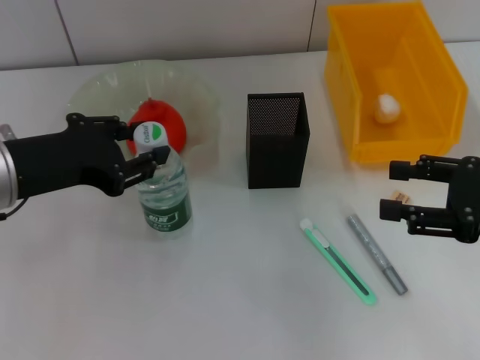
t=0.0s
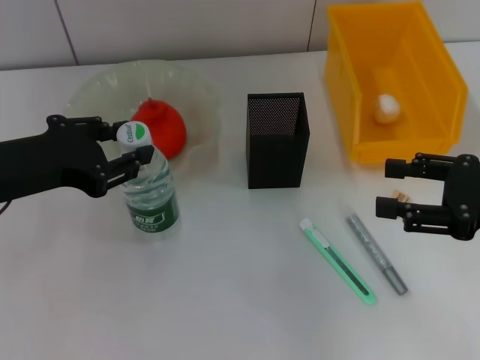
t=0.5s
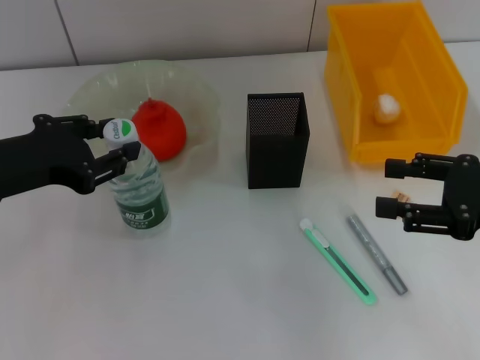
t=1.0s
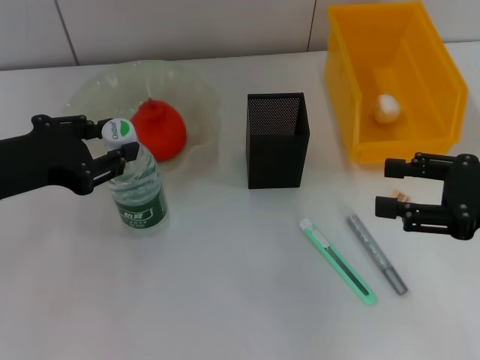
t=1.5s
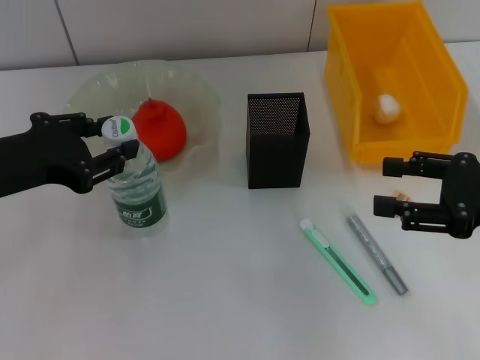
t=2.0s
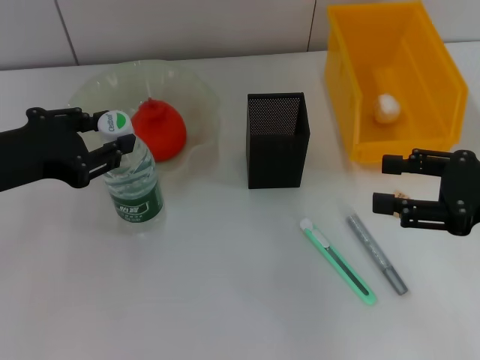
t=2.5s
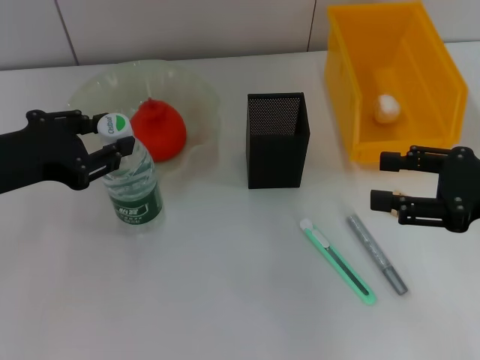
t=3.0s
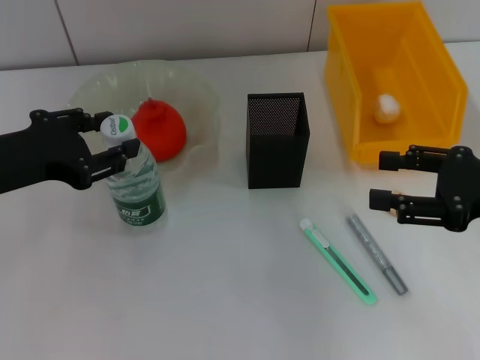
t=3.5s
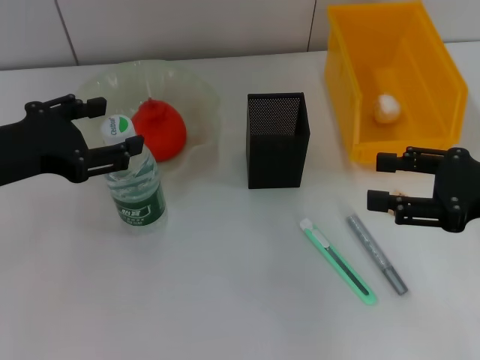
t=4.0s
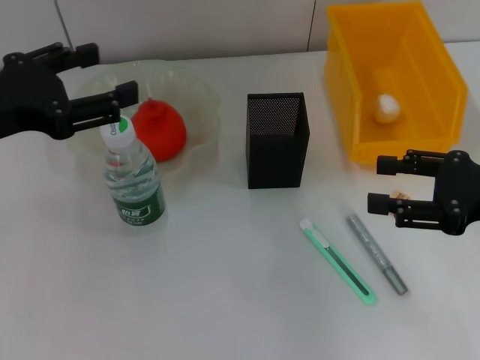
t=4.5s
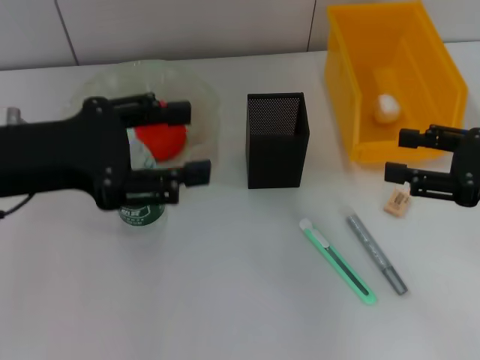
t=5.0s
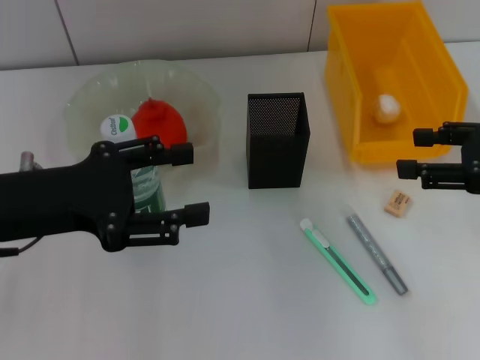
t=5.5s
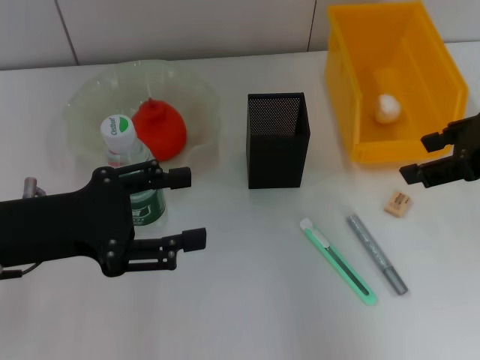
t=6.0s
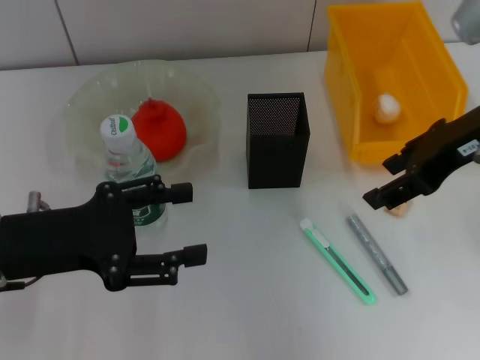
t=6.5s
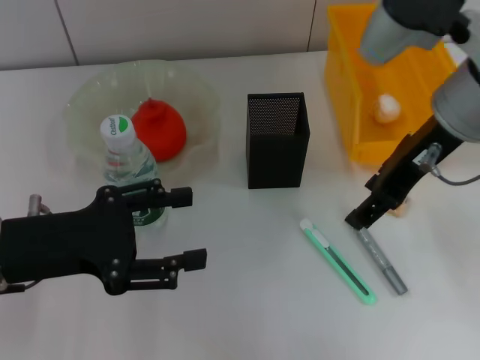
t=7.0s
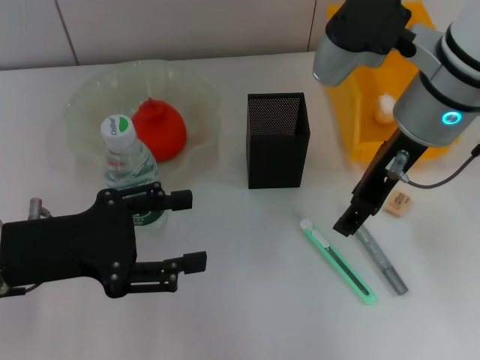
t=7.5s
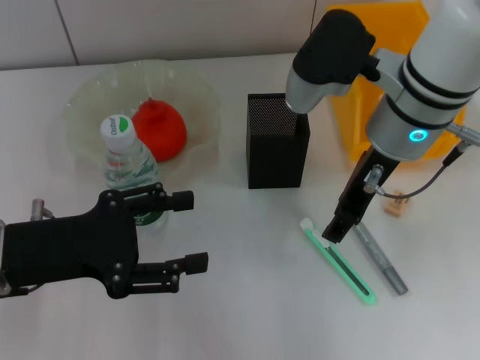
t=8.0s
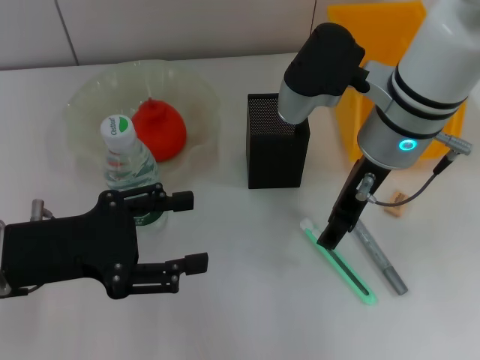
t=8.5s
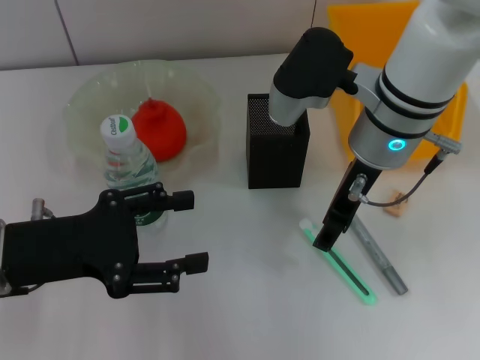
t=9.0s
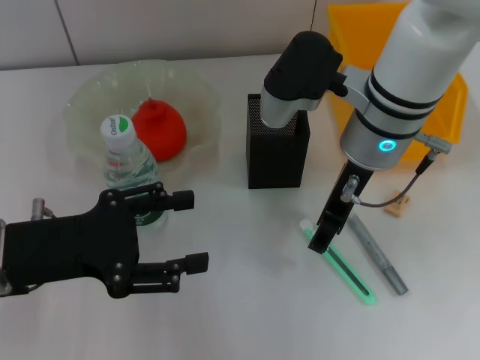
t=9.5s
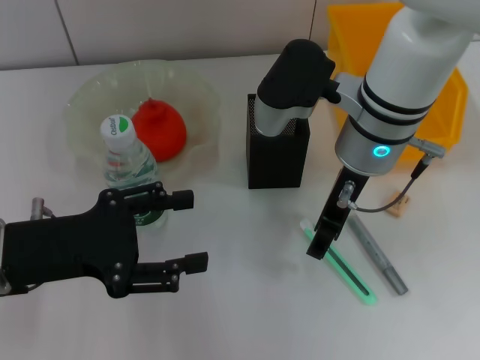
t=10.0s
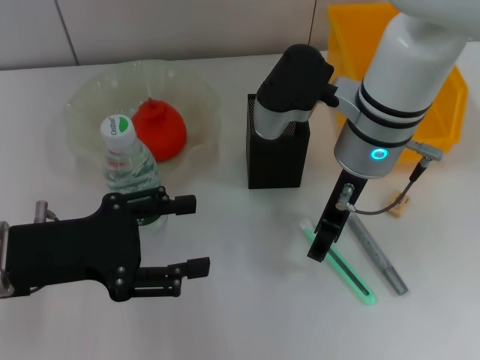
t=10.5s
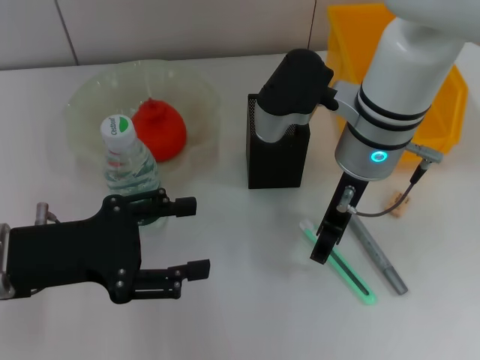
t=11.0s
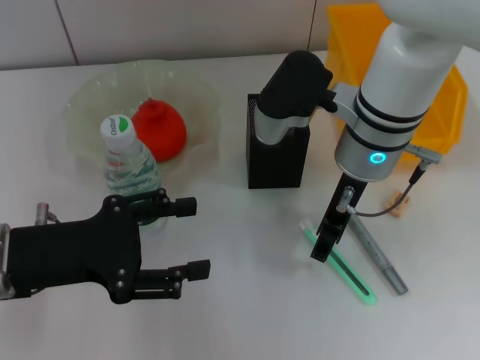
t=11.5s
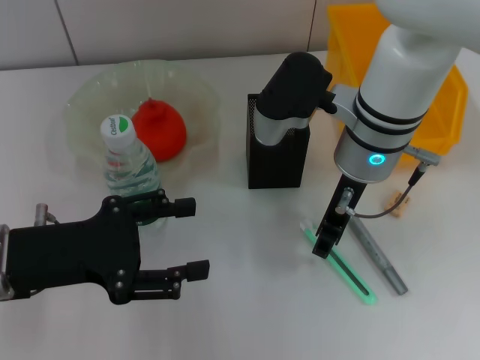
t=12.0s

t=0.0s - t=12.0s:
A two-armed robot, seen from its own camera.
Step, t=0.0s - t=2.0s: Place the water bottle on the table with the left hand.
t=0.0s - t=2.0s: The grippers stay close to where they were, moving slightly.
t=2.0s - t=4.0s: The left gripper opens up.
t=4.0s - t=6.0s: The right gripper is displaced upward by approximately 10 cm.
t=6.0s - t=8.0s: The right gripper goes roughly 15 cm to the left.
t=8.0s - t=10.0s: The grippers make only small movements.
t=10.0s - t=12.0s: Both grippers stay put.

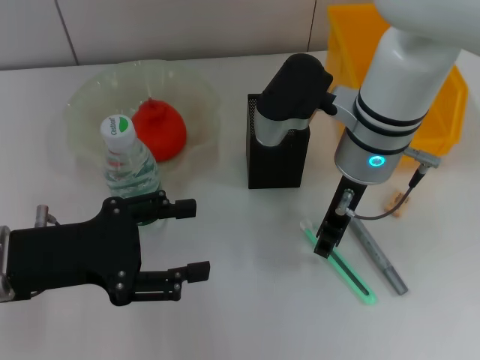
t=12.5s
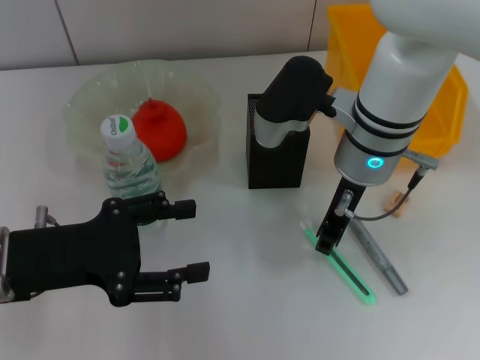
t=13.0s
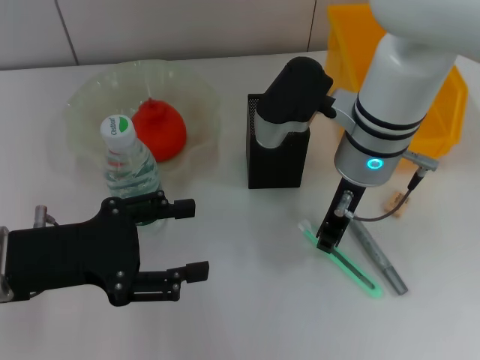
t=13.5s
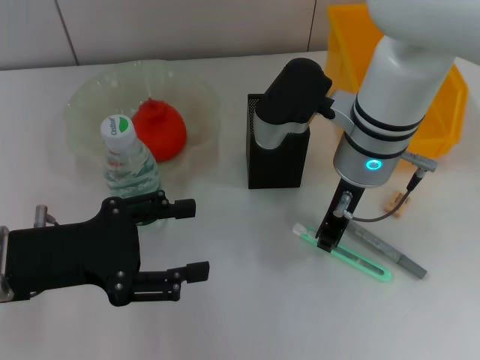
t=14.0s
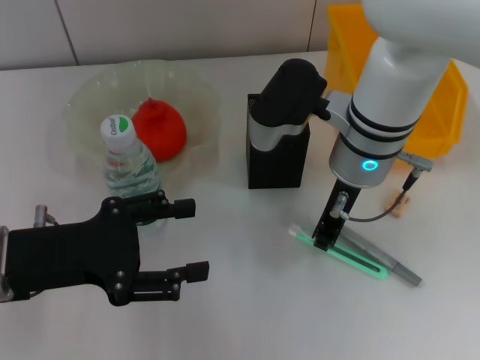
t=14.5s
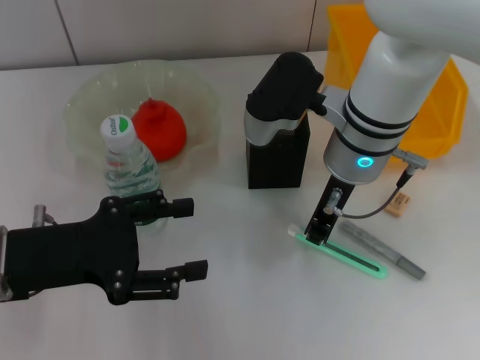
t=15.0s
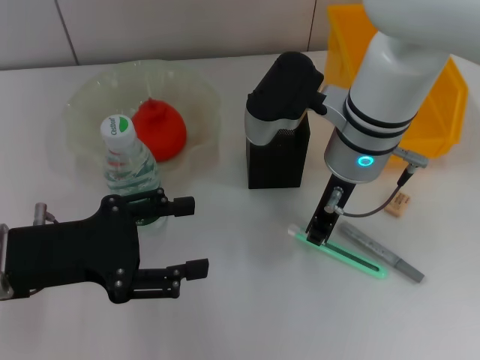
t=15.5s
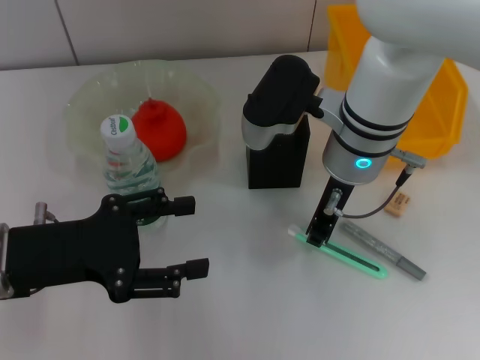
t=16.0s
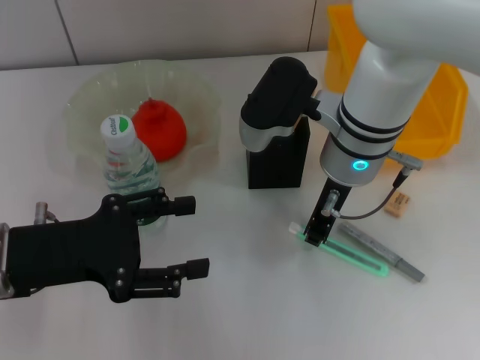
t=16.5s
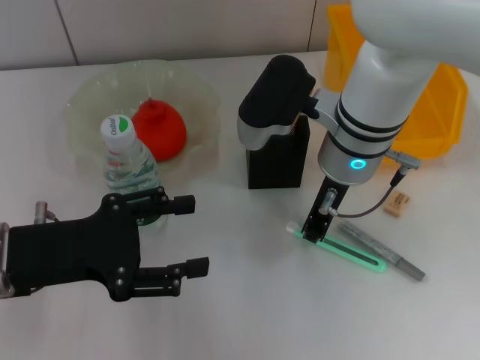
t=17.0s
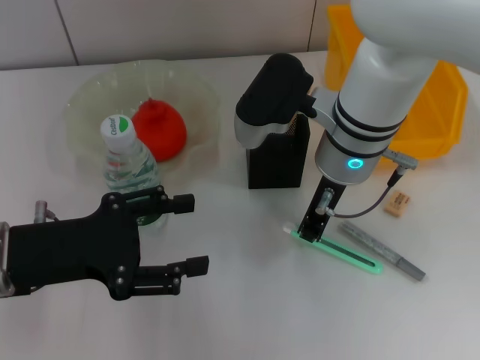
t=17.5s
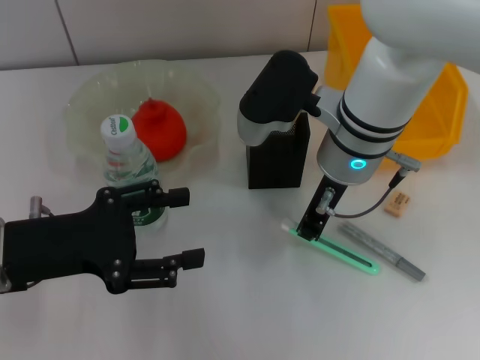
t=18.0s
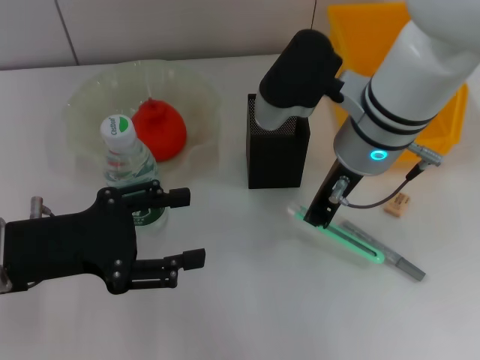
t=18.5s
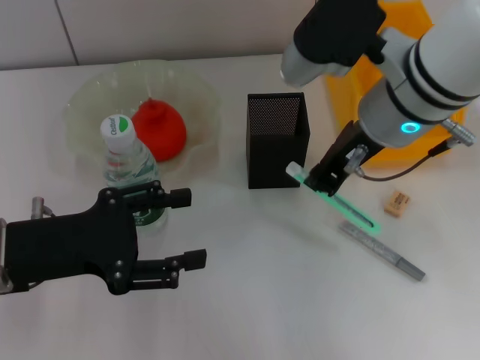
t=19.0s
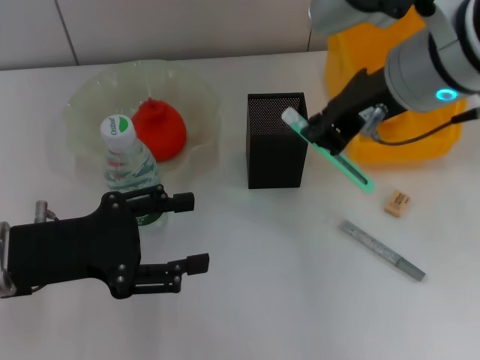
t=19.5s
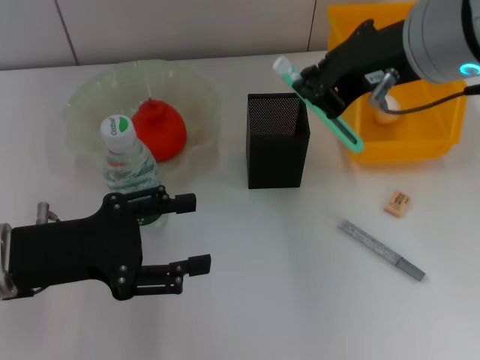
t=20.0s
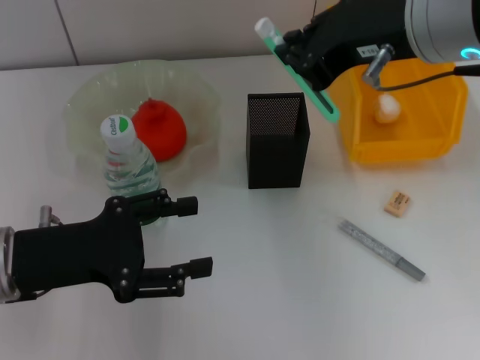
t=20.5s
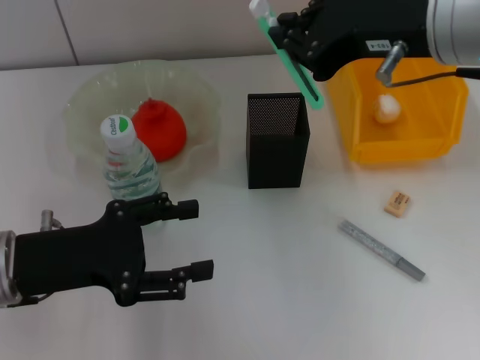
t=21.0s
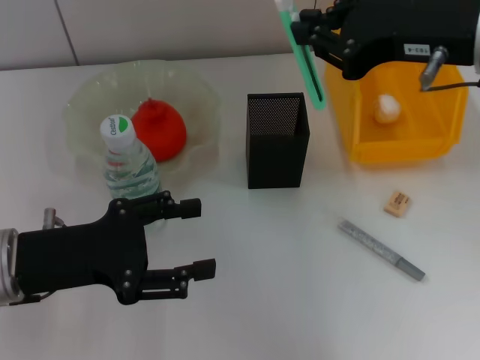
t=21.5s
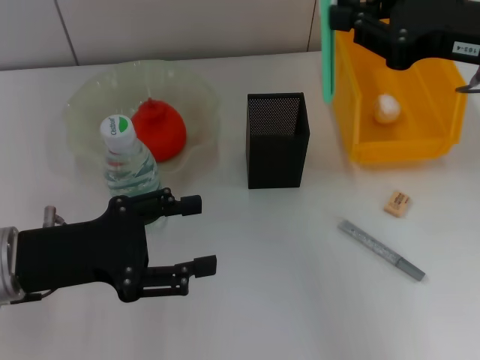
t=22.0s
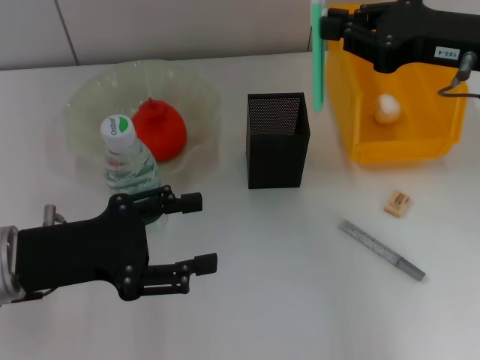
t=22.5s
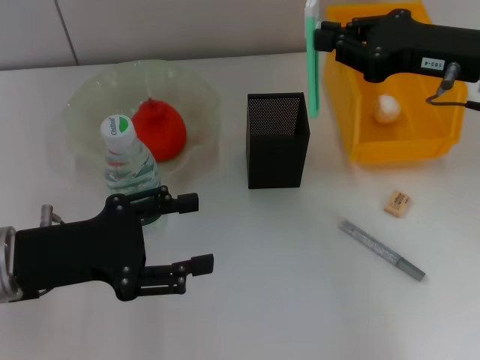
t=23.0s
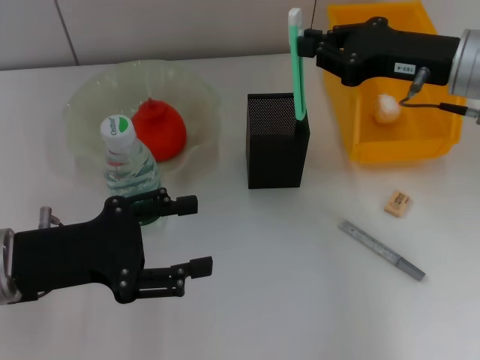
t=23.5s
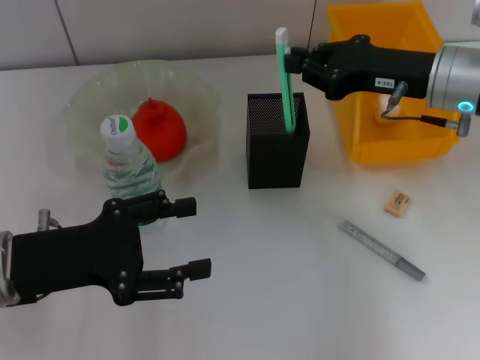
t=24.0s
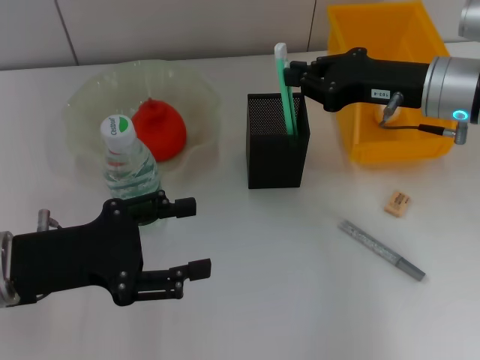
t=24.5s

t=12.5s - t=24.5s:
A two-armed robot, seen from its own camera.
Step, t=12.5s - t=17.0s: Grab the blue utility knife with the right hand.
t=12.5s - t=14.5s: The right gripper closes up.
t=14.5s - t=16.5s: The two grippers keep their place.
t=16.5s - t=18.5s: The grippers stay close to where they were, moving slightly.
t=18.5s - t=20.5s: The right gripper is displaced upward and backward by some 15 cm.
t=20.5s - t=22.5s: The right gripper is displaced to the right and downward by approximately 15 cm.
t=22.5s - t=24.5s: The right gripper heads downward, covering some 5 cm.

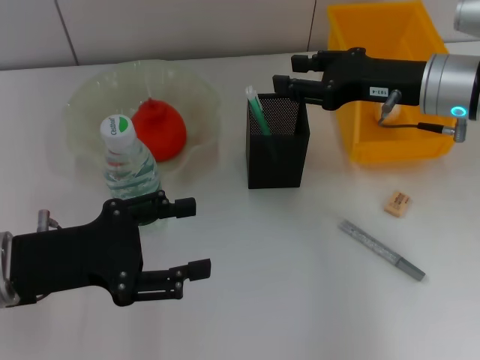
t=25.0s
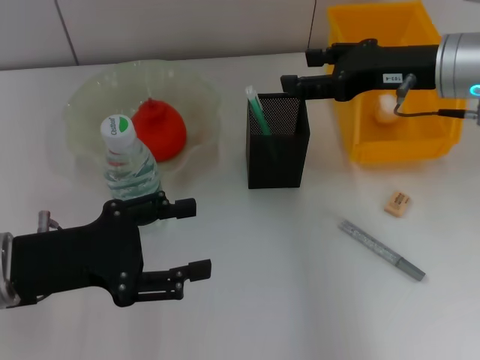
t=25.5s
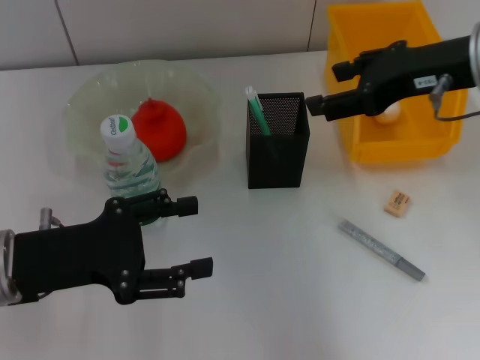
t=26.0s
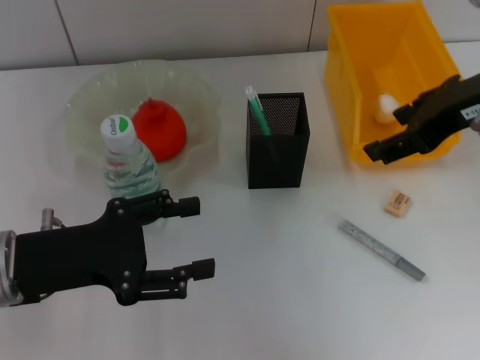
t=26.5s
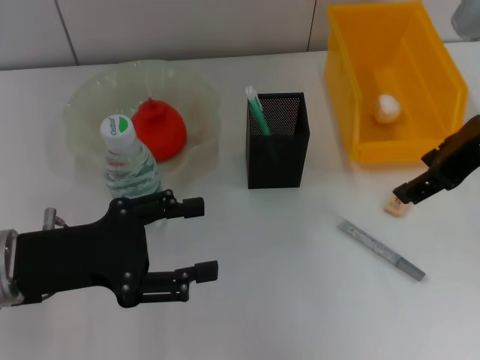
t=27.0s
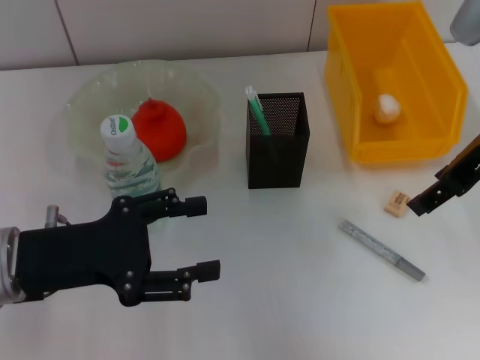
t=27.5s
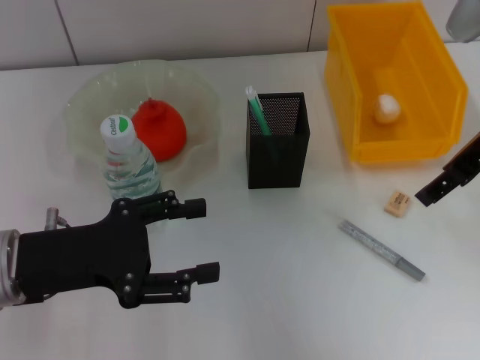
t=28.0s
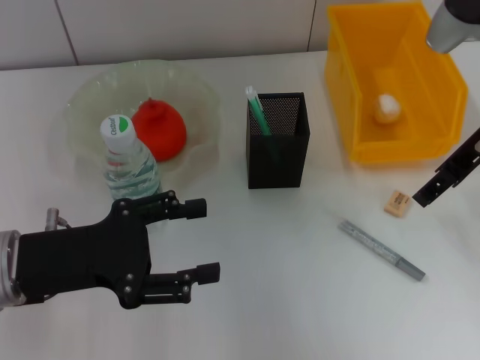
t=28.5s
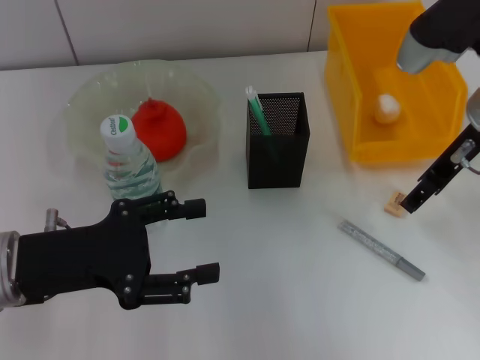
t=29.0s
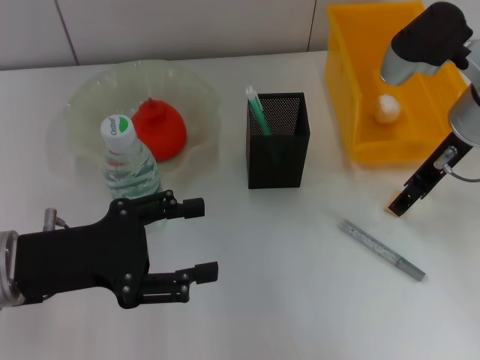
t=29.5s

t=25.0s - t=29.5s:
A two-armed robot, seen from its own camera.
t=25.0s - t=27.0s: The right gripper heads upward and backward, covering approximately 10 cm, and opens.
t=27.0s - t=29.5s: The right gripper travels downward and forward by roughly 10 cm.
